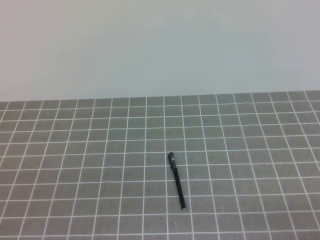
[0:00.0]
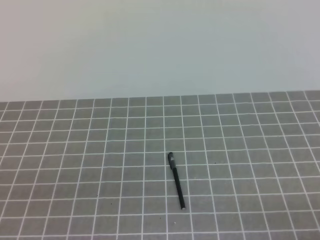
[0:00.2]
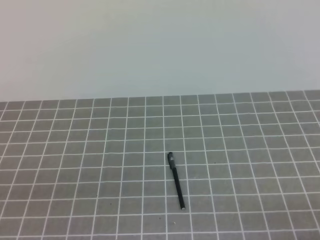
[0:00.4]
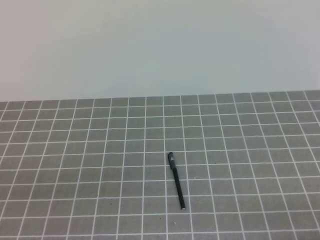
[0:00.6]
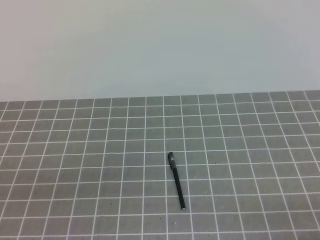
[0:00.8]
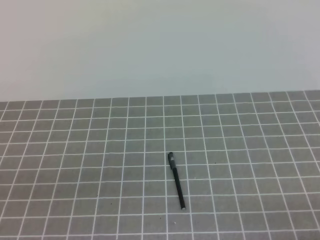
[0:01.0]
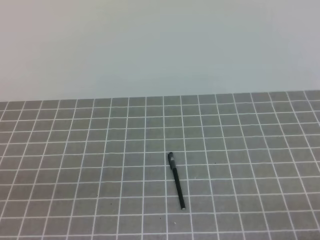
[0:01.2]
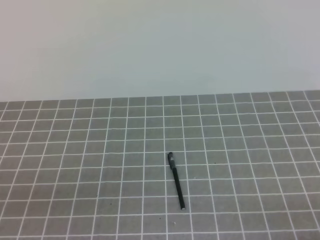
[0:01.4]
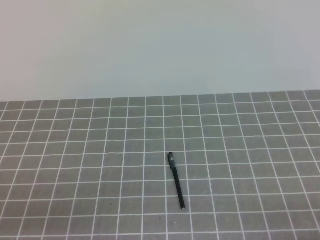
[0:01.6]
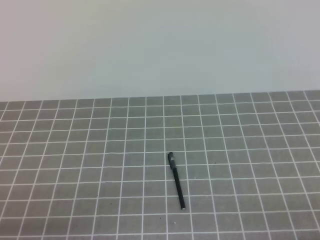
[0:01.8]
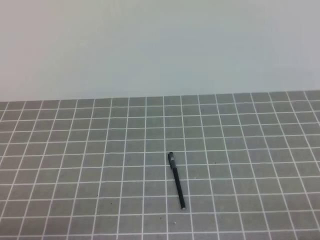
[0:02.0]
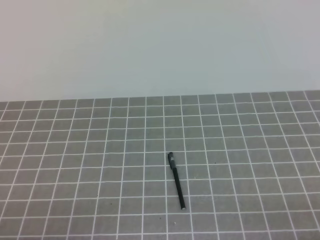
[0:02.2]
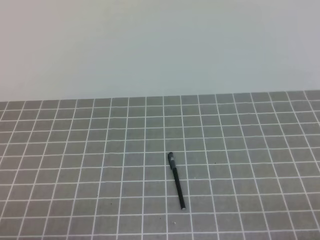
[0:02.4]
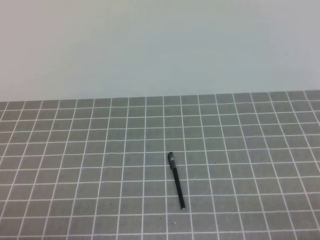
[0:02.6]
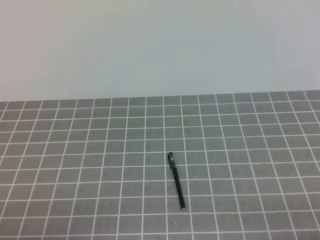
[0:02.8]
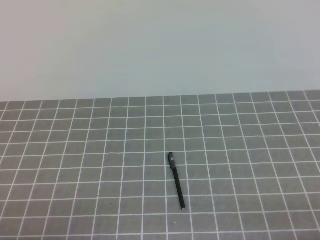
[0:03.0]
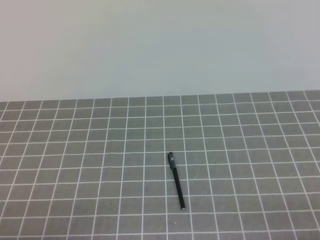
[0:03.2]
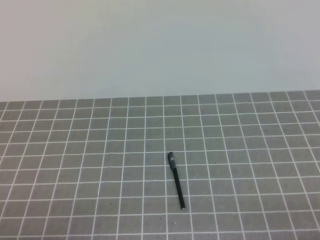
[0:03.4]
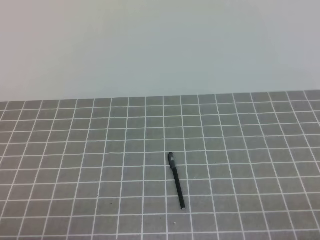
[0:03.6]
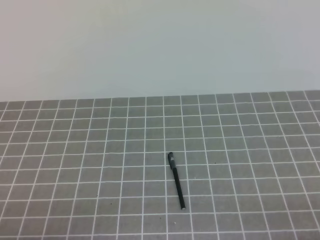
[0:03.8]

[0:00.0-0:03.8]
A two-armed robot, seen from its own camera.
Task of the whole recording: on the grey tablecloth, hold the pen cap in one hand and the pen in the other, then cover the pen cap.
0:02.6 to 0:03.8: Both grippers stay about where they are.
